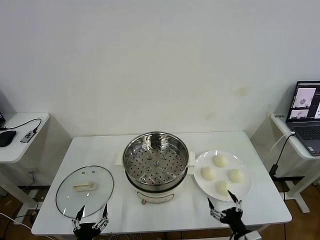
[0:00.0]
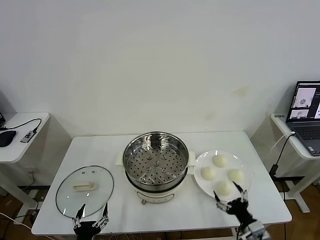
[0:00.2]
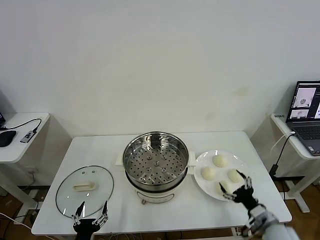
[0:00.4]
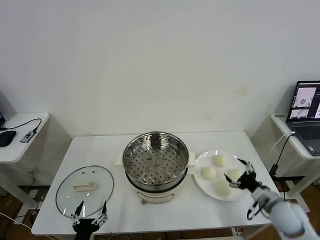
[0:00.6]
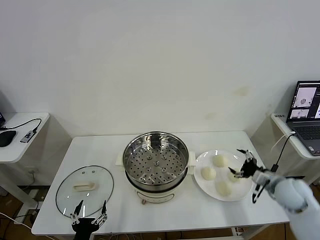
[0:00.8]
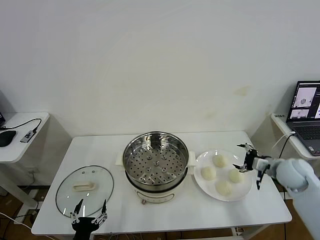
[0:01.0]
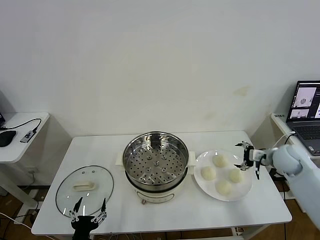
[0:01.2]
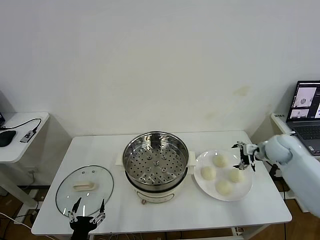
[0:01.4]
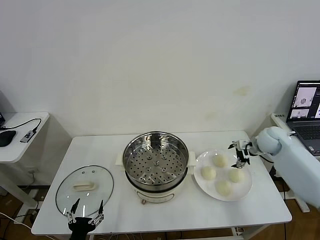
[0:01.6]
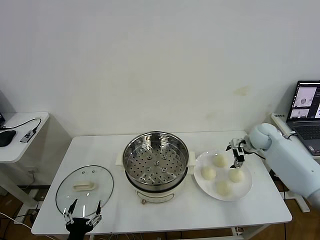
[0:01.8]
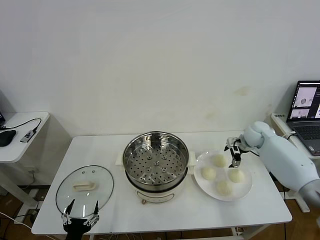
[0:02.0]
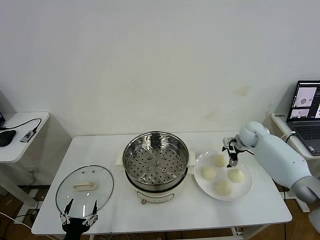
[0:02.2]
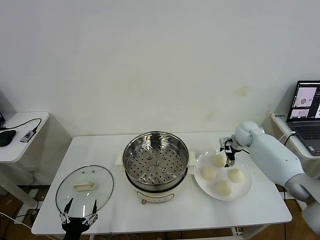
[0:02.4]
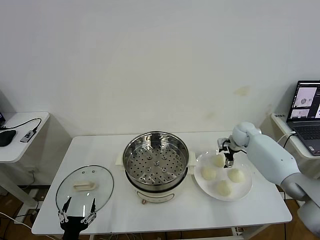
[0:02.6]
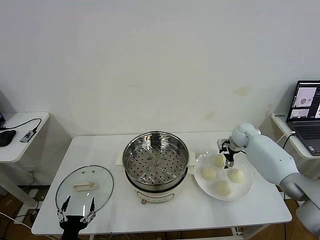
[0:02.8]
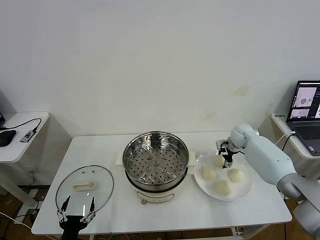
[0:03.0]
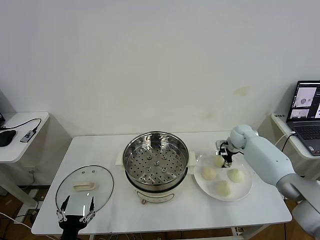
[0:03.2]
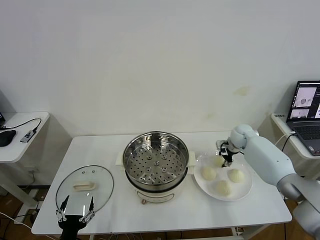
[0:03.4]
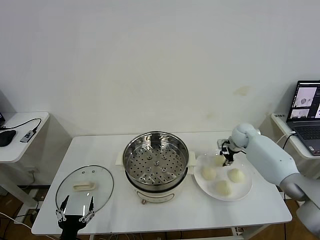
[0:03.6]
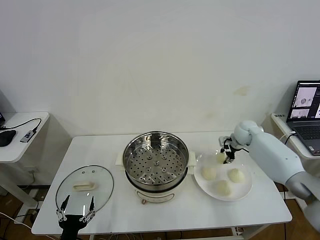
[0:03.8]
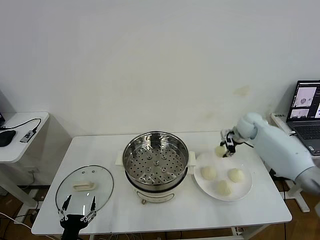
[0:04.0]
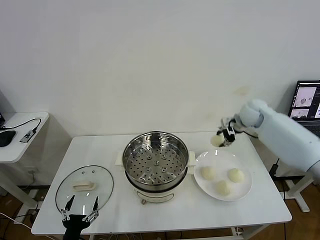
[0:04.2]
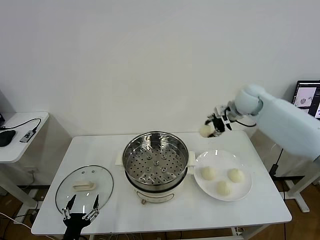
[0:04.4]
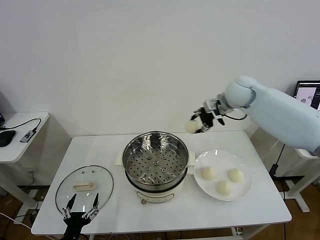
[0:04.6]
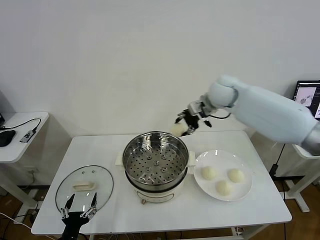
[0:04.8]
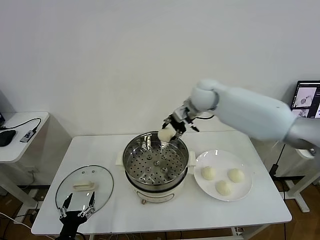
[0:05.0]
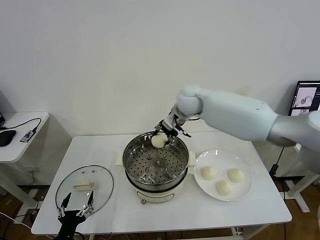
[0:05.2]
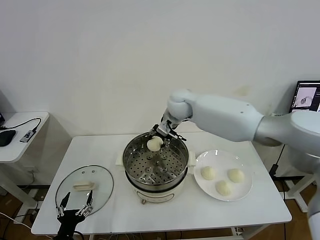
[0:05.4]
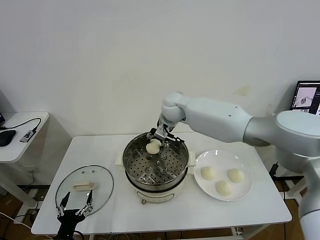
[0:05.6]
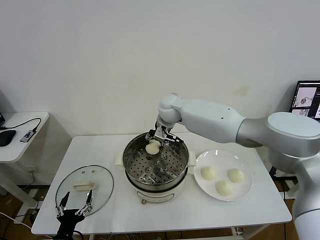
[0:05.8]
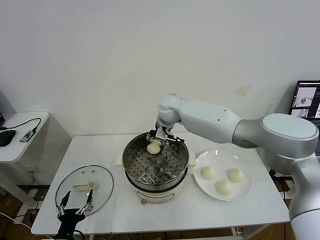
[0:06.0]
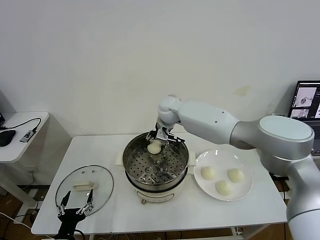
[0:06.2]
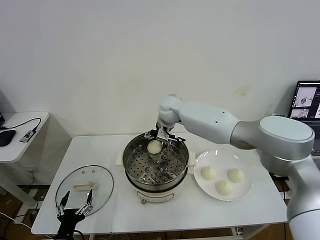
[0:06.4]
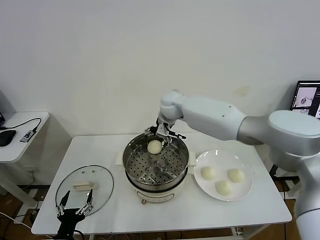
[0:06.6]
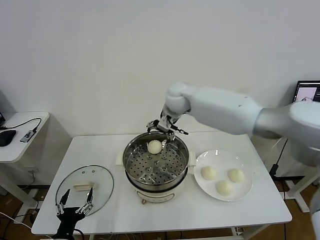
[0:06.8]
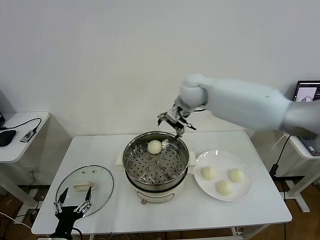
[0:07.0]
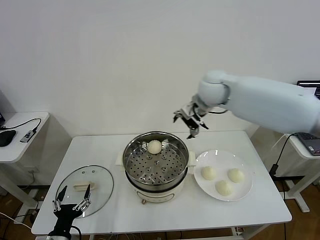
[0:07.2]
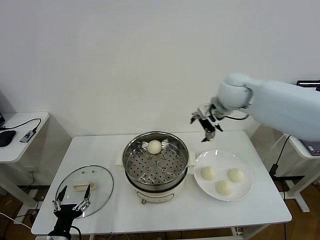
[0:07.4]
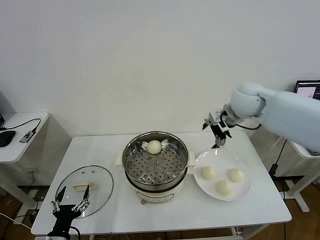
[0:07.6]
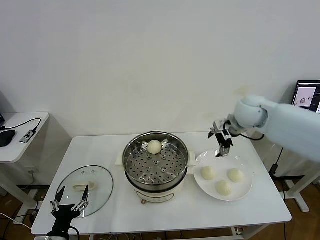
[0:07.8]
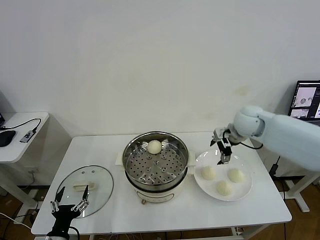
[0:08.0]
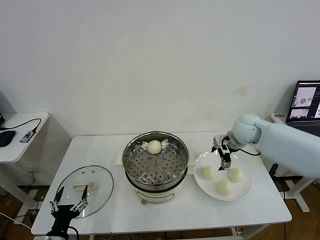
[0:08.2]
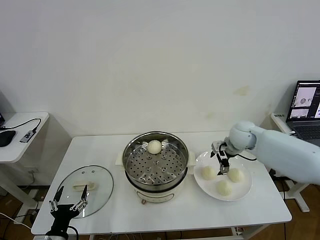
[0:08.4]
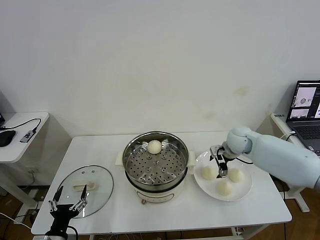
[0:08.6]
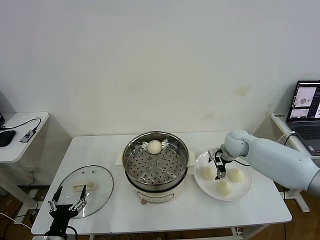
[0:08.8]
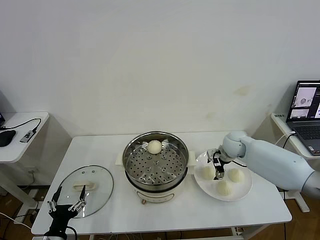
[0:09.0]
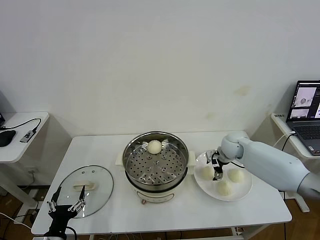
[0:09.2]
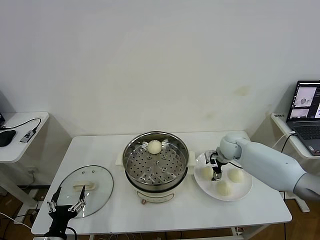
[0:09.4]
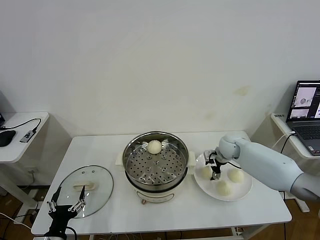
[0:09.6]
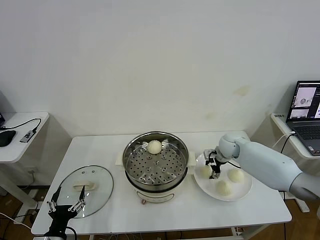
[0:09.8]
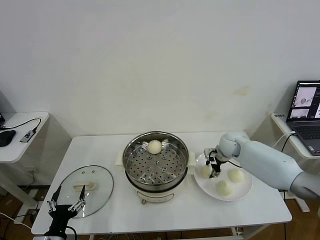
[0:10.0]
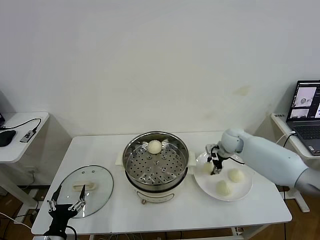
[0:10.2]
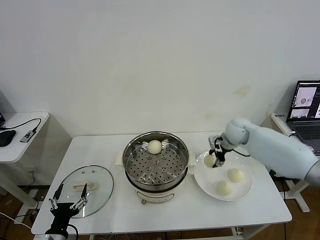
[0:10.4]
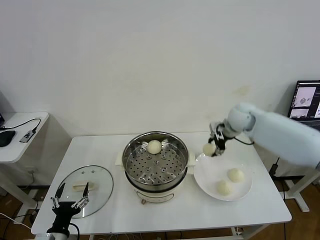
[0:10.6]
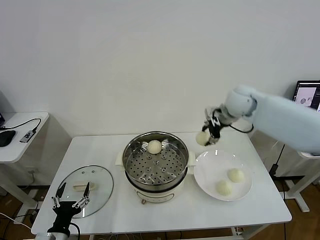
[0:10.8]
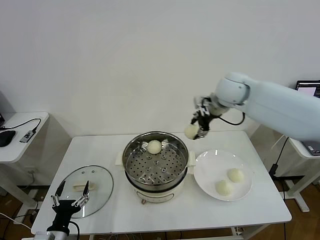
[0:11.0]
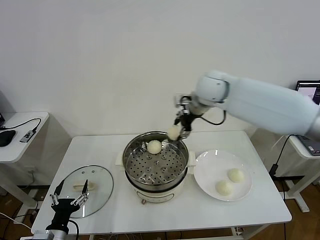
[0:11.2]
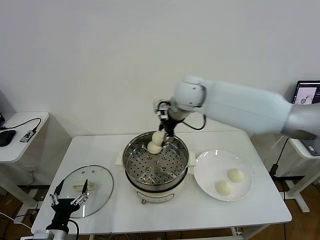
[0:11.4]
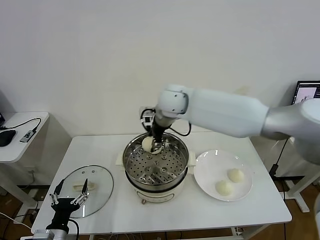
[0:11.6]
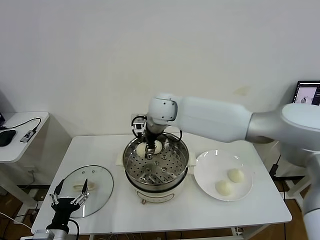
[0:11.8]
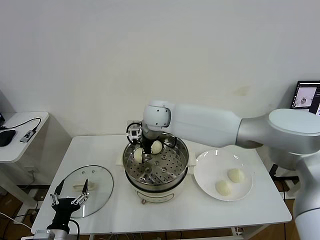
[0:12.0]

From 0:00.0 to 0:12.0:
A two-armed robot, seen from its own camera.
Task of the whole recording: take steamed baozi put them in steamer then cover it.
Step, from 0:00.0 to 0:03.6: Grasp the baozi in the plate with right gripper.
Step, from 0:03.8 to 0:06.4: Place the baozi on the steamer with right gripper.
Step, from 0:06.6 to 0:10.0: Grasp the baozi in the plate with right gripper.
From 0:01.6 to 0:03.0: The right gripper is displaced forward, to the left and downward by about 10 cm, and closes up.
From 0:03.0 to 0:04.4: The right gripper goes about 20 cm upward, and closes its fingers.
From 0:04.4 to 0:06.0: The right gripper heads to the left, covering some 25 cm.
From 0:06.0 to 0:07.6: The right gripper moves to the right, about 25 cm, and opens.
From 0:07.6 to 0:09.0: The right gripper shifts some 20 cm downward.
From 0:09.0 to 0:10.4: The right gripper heads upward, covering some 10 cm, and closes its fingers.
From 0:10.4 to 0:12.0: The right gripper travels to the left by about 30 cm.

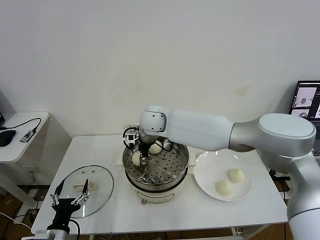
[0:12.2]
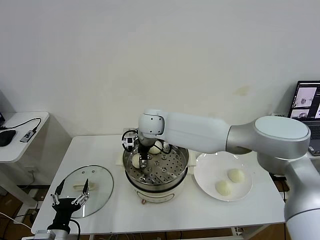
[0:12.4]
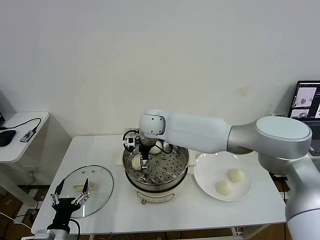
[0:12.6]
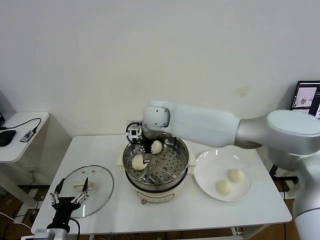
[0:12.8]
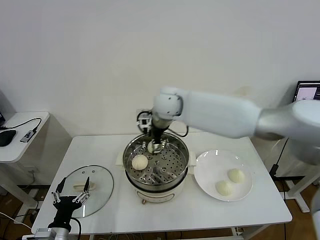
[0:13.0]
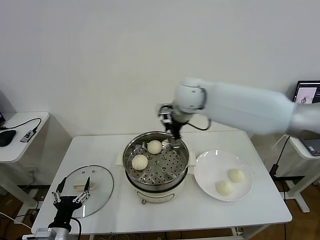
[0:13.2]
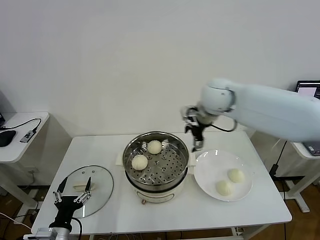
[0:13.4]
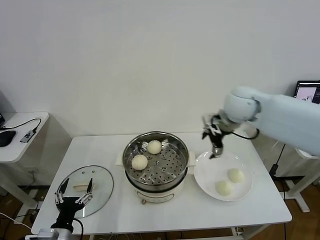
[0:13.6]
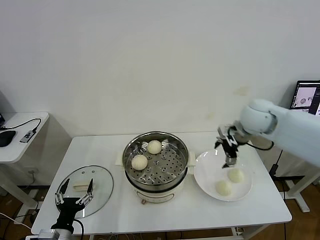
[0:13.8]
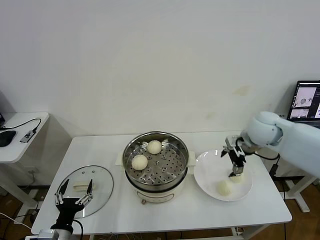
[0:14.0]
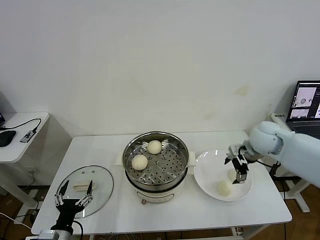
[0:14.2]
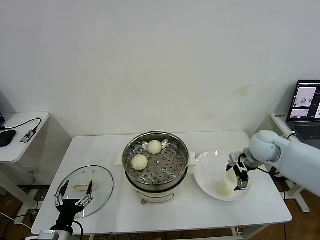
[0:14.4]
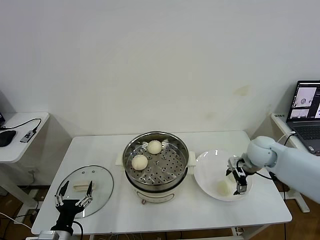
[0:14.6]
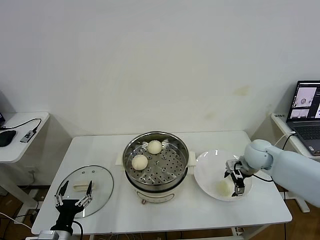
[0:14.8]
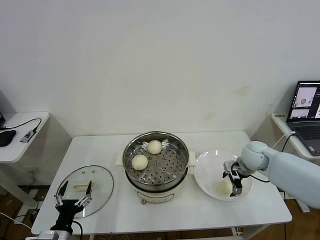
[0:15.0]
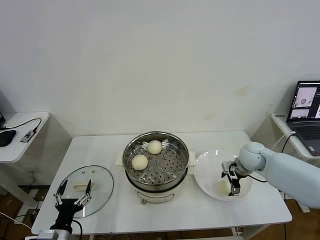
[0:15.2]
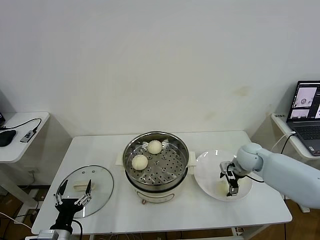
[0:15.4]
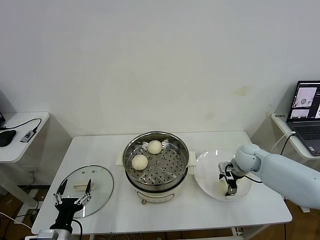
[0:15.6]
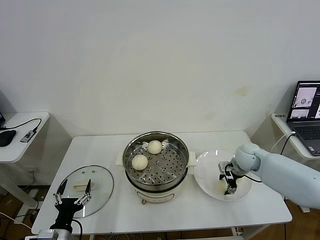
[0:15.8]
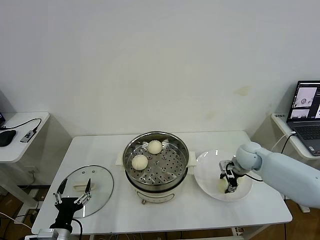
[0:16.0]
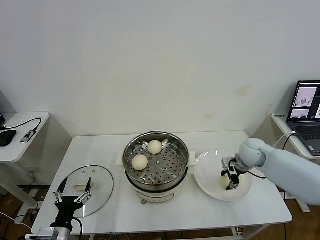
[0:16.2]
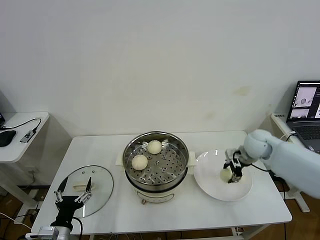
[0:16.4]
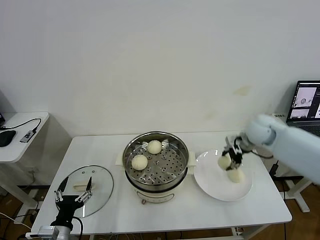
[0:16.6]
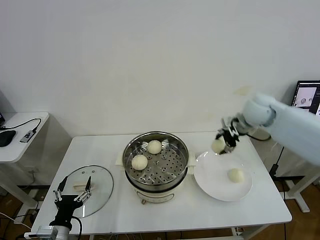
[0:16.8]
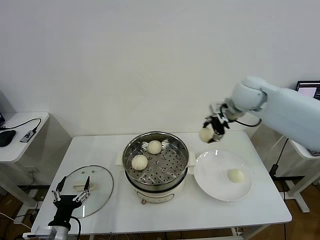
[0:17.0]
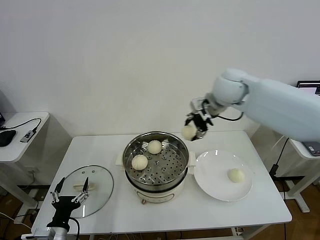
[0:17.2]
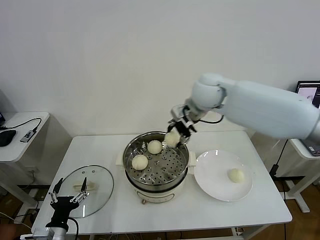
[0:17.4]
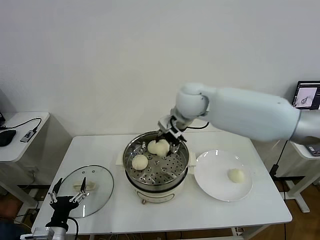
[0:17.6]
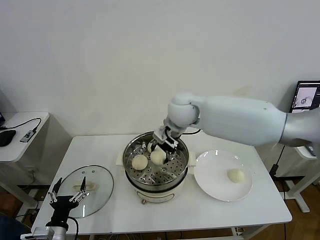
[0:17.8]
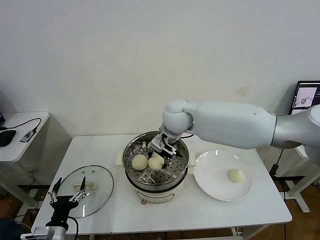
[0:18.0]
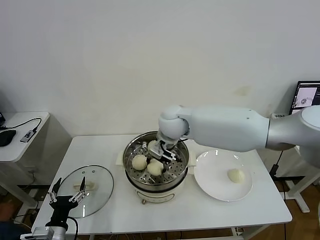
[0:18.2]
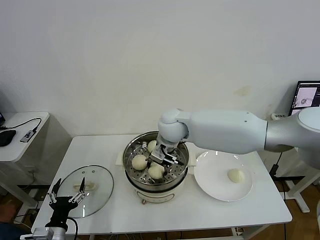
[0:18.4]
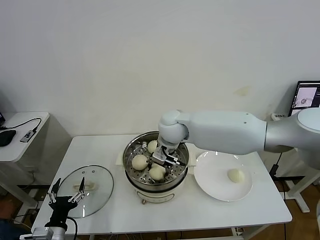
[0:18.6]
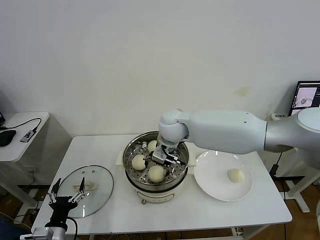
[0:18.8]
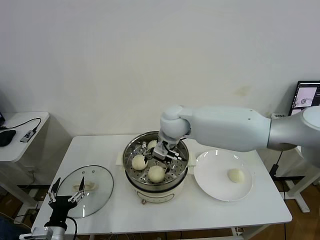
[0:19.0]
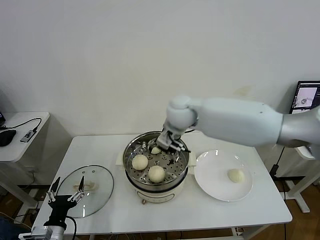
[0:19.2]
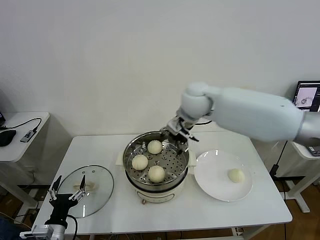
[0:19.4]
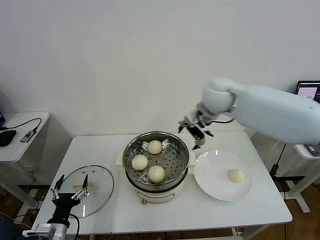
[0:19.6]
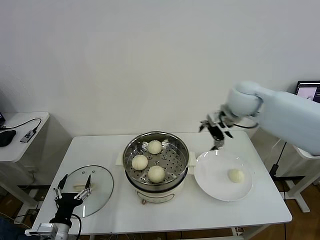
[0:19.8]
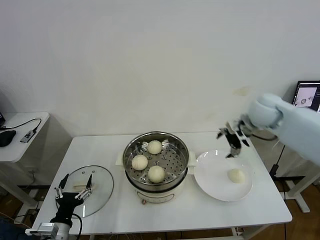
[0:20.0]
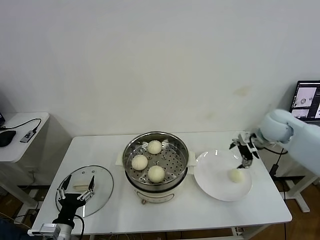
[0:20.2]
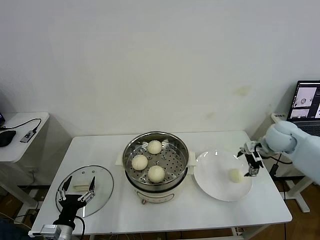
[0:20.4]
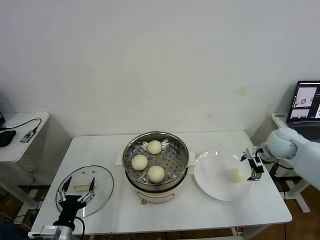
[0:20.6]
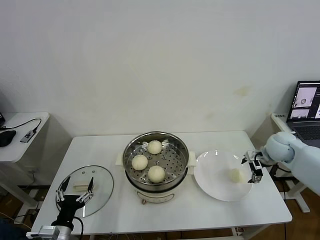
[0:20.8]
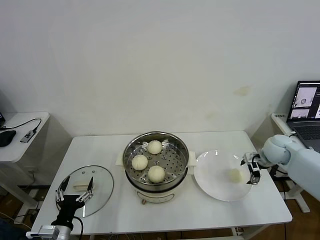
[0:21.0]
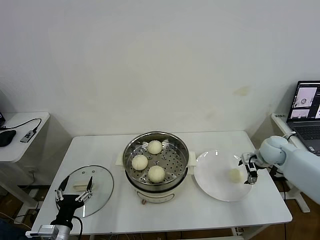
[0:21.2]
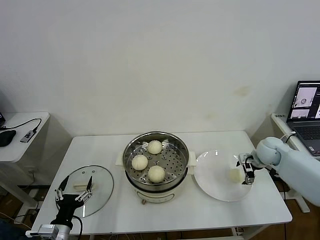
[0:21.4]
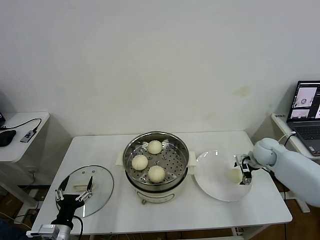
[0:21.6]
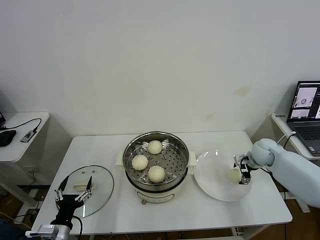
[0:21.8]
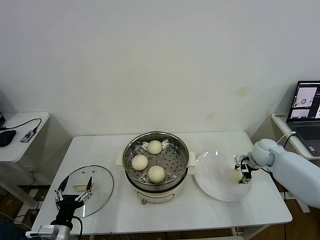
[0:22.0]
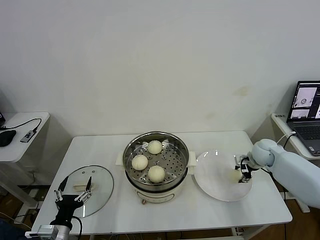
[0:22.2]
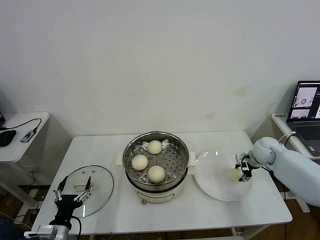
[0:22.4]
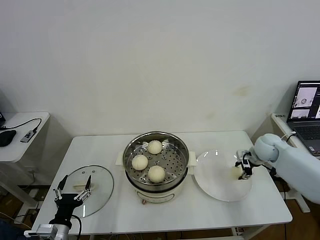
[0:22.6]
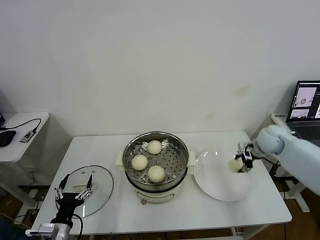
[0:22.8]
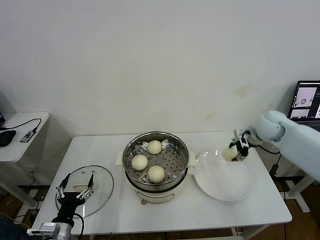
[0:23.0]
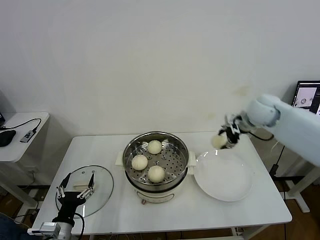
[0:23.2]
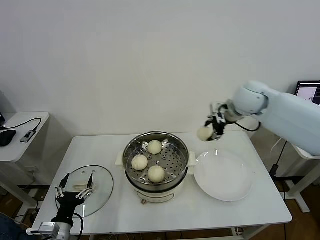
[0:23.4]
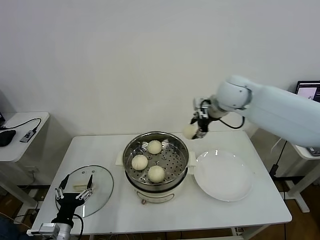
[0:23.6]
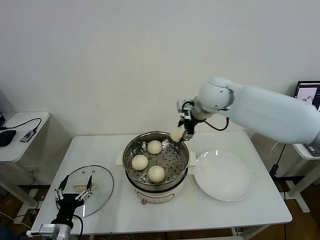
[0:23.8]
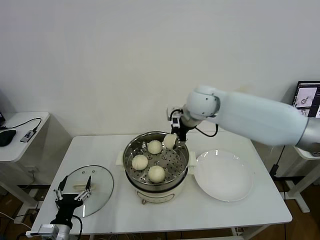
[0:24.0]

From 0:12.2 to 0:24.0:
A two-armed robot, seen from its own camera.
Task of the whole recording: take steamed baozi put them in steamer then cover it.
Step, from 0:13.0 to 0:16.0: Grasp the baozi in the plate with right gripper.
Step, from 0:16.2 to 0:19.0: Place the baozi on the steamer with right gripper.
Step, from 0:19.2 to 0:22.4: Grasp the baozi in the plate with right gripper.
From 0:12.2 to 0:13.6: The right gripper travels to the right by roughly 30 cm, and opens its fingers.
From 0:13.6 to 0:15.2: The right gripper heads downward, covering about 20 cm.
From 0:15.2 to 0:16.6: The right gripper shifts approximately 10 cm upward, and closes.
From 0:16.6 to 0:18.2: The right gripper is displaced to the left by some 30 cm.
From 0:18.2 to 0:19.6: The right gripper heads to the right and upward, covering approximately 15 cm, and opens its fingers.
From 0:19.6 to 0:21.0: The right gripper moves to the right and downward, approximately 30 cm.
From 0:21.0 to 0:22.6: The right gripper closes its fingers.
From 0:22.6 to 0:24.0: The right gripper is displaced to the left and upward by roughly 35 cm.
